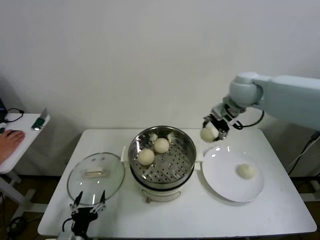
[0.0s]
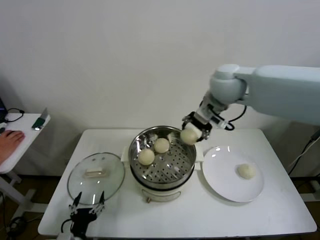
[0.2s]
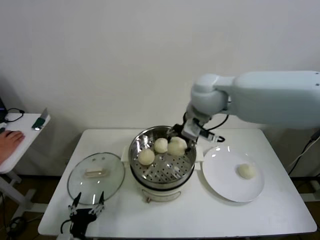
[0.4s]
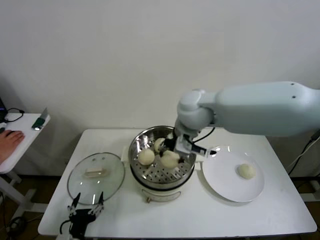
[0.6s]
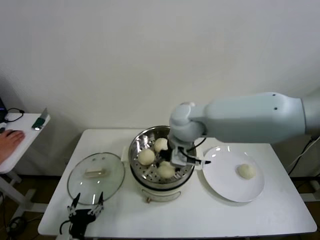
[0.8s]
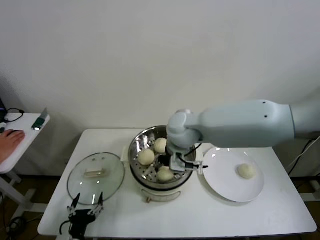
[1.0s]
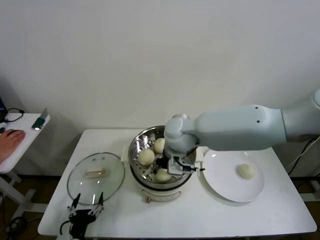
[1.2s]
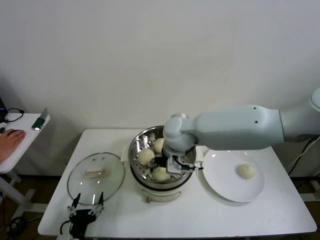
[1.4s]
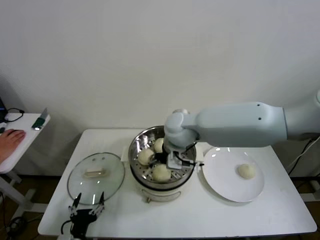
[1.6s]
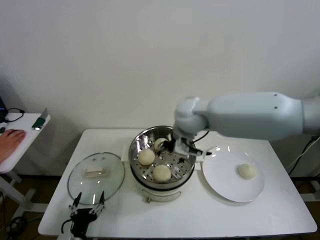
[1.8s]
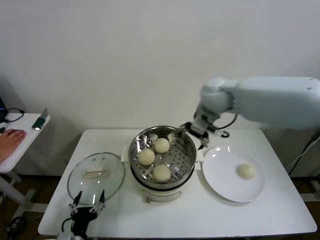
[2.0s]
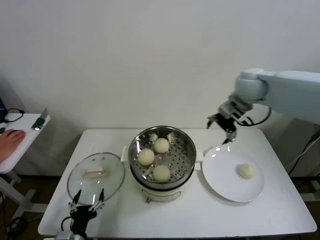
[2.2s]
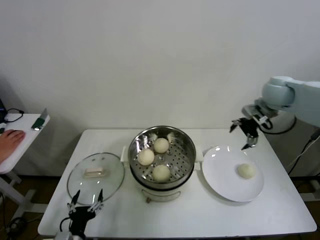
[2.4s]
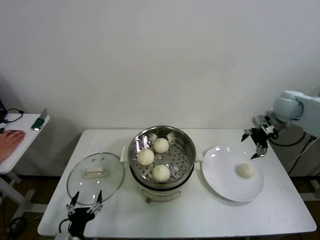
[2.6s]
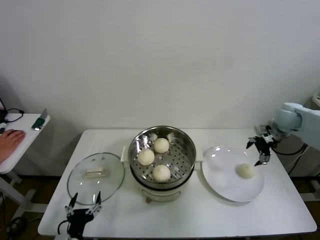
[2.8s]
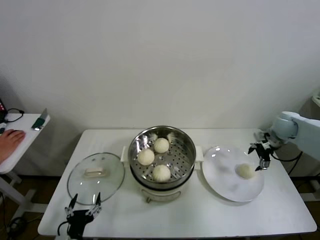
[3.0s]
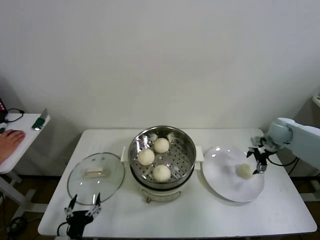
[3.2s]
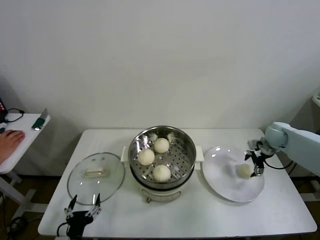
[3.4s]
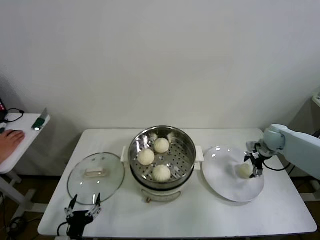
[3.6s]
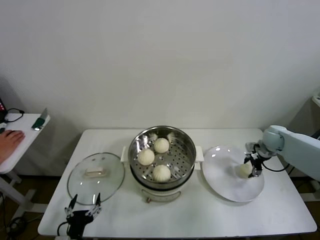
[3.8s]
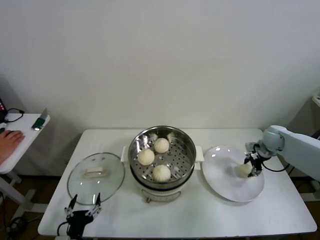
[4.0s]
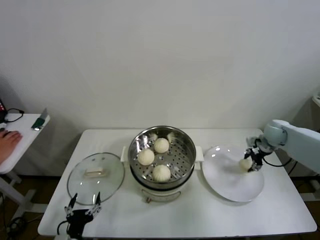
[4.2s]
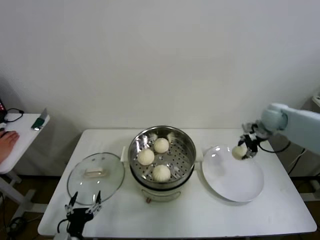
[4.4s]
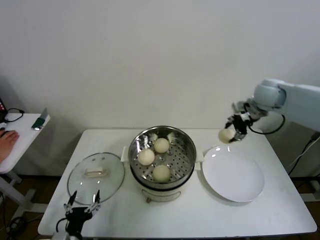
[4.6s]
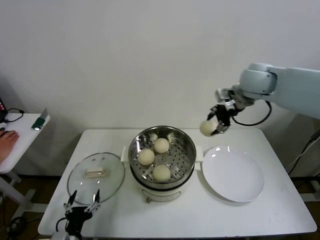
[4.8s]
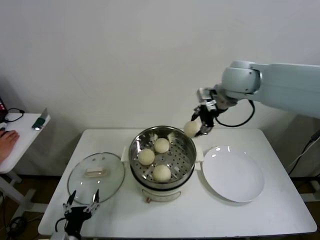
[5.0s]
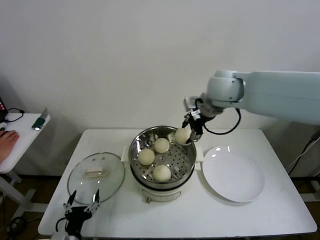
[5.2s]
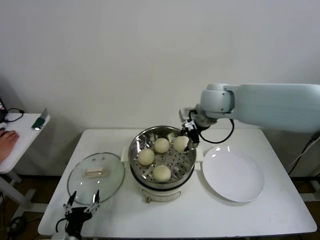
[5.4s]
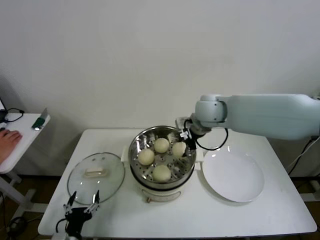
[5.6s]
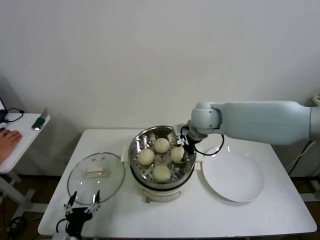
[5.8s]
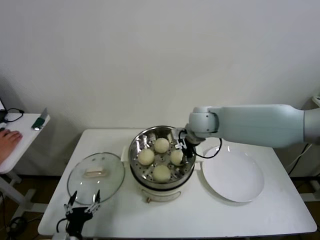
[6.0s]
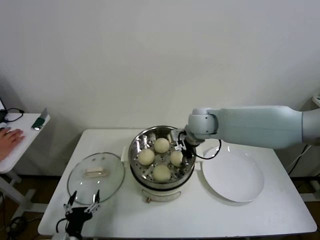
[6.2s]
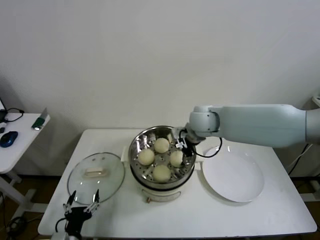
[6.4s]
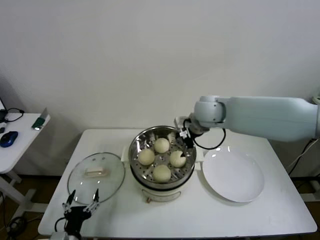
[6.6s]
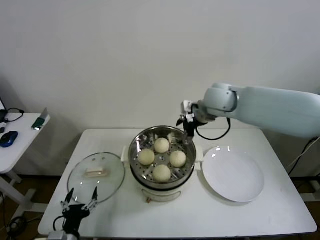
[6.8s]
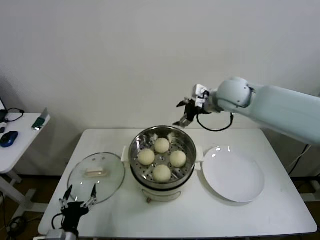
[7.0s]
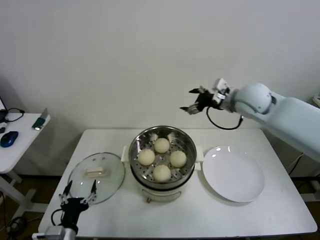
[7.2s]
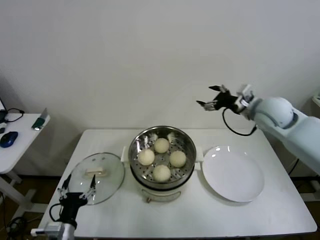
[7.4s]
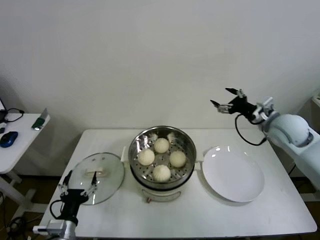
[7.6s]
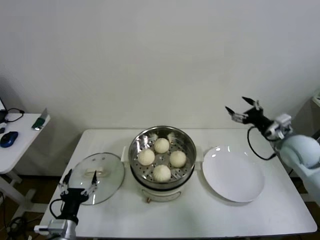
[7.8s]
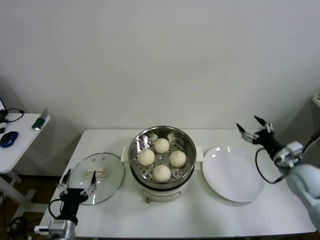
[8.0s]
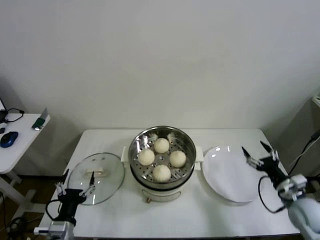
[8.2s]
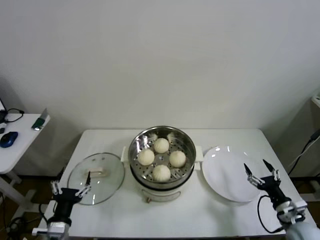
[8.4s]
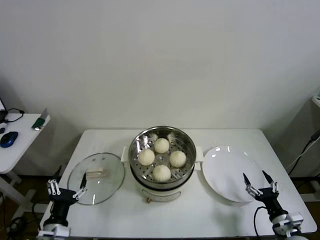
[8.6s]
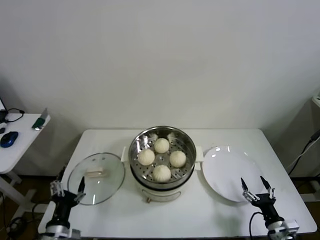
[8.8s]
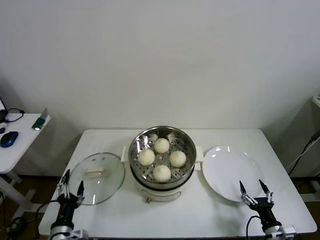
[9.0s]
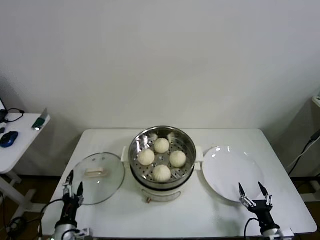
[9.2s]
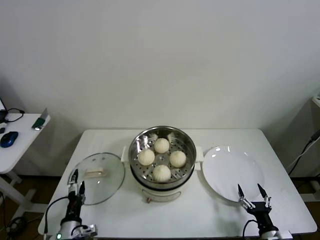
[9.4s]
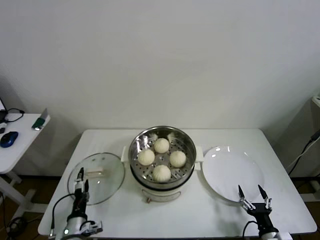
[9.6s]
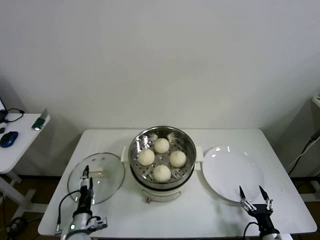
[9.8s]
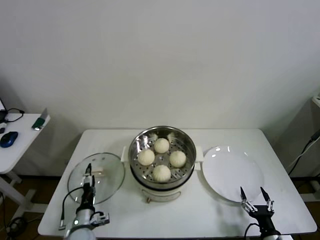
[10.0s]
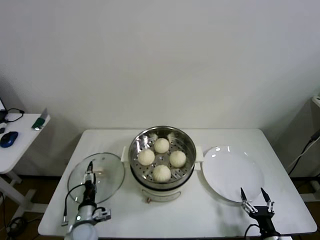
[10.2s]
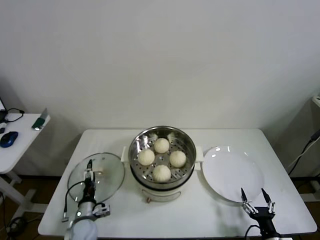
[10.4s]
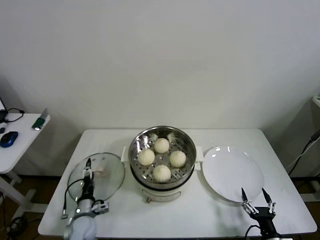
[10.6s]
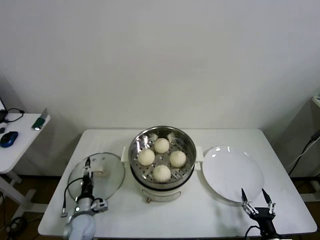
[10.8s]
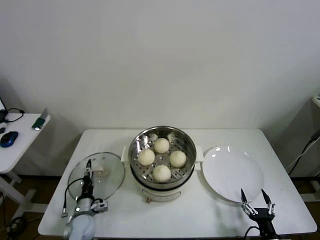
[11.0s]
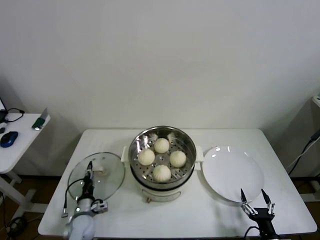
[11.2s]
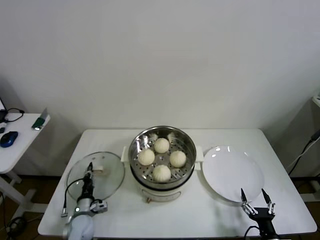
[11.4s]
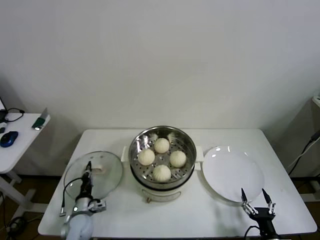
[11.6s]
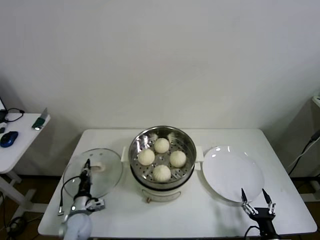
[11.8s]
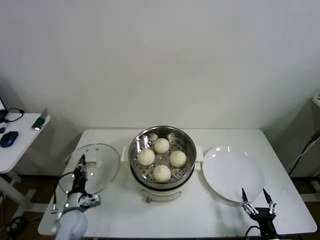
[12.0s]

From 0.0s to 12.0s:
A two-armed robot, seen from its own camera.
Step, from 0.0s to 1.6s: Place the baozi on the steamer with right gripper.
Step, from 1.8s to 3.8s: Grasp the baozi in the plate with right gripper.
Step, from 4.2s to 6.2s: Place the baozi on the steamer with right gripper.
Step, from 6.6s to 11.4s: Grasp the pot lid with left gripper.
From 0.0s to 1.6s: The right gripper heads to the left, downward and backward, covering roughly 20 cm, and opens up.
From 1.6s to 3.0s: The right gripper is displaced to the right by roughly 40 cm.
From 3.0s to 4.4s: The right gripper shifts some 5 cm to the left, and closes up.
From 4.4s to 6.0s: The right gripper heads to the left, covering about 25 cm.
From 6.0s to 7.6s: The right gripper travels to the right by some 25 cm, and opens up. The left gripper moves some 5 cm.
From 7.6s to 9.0s: The right gripper moves downward and backward, some 40 cm.
From 9.0s to 10.4s: The left gripper is displaced forward and downward by about 15 cm.
From 10.4s to 12.0s: The left gripper closes up.

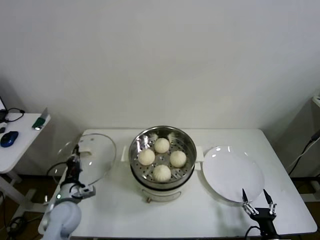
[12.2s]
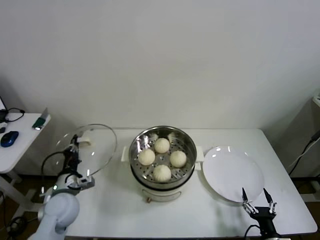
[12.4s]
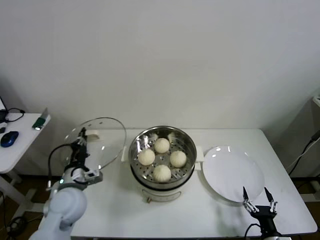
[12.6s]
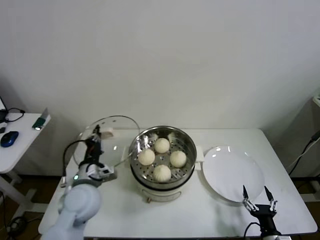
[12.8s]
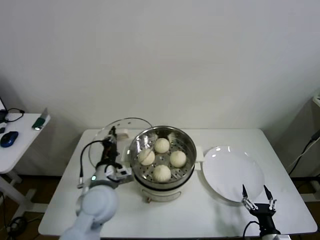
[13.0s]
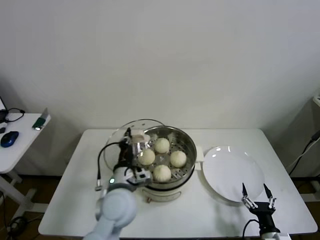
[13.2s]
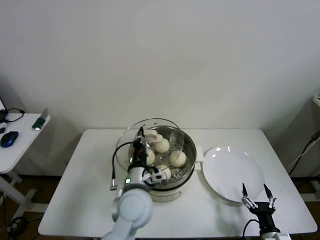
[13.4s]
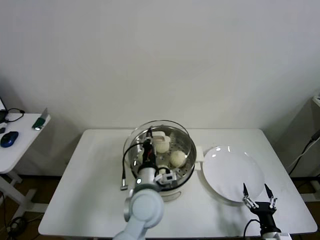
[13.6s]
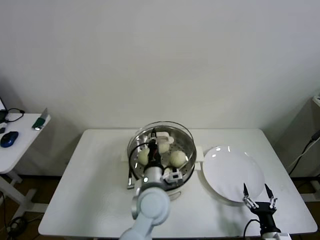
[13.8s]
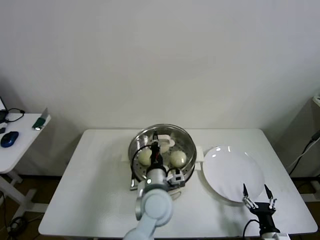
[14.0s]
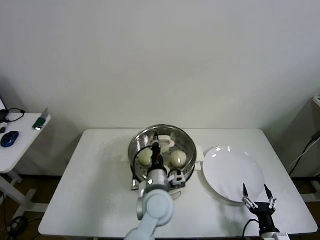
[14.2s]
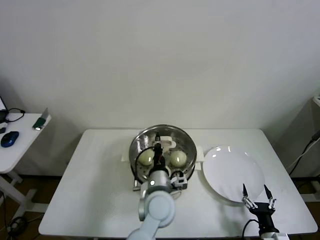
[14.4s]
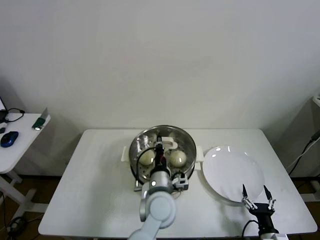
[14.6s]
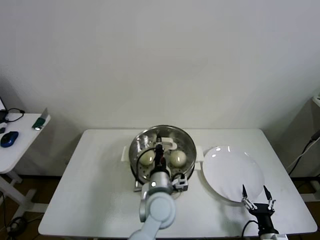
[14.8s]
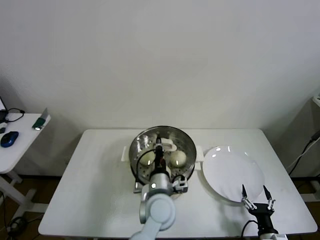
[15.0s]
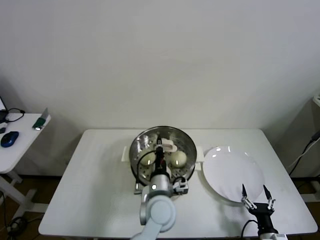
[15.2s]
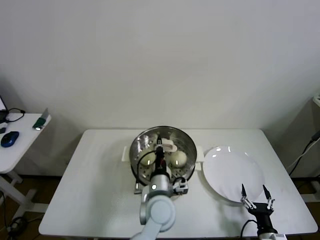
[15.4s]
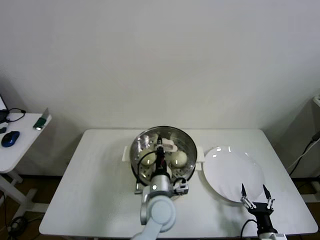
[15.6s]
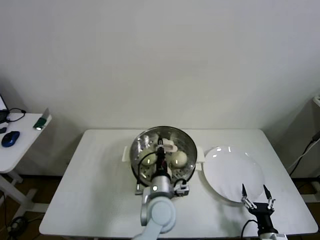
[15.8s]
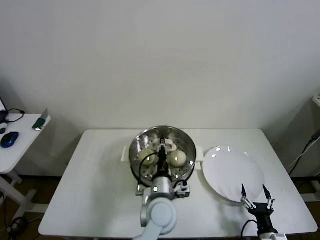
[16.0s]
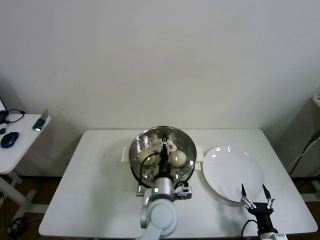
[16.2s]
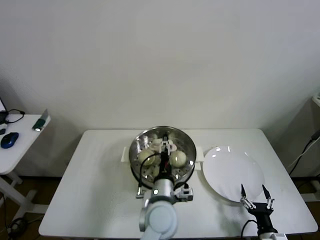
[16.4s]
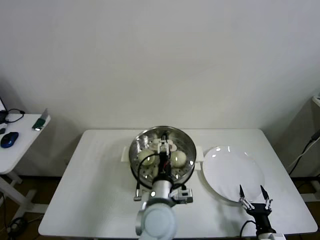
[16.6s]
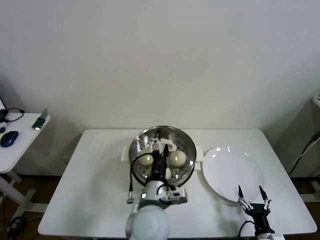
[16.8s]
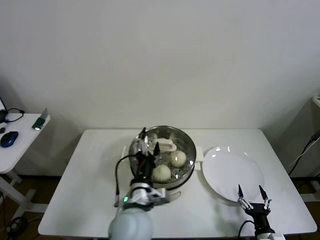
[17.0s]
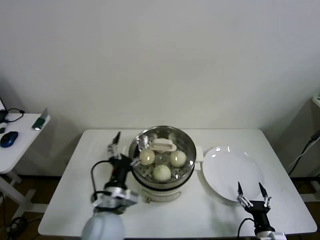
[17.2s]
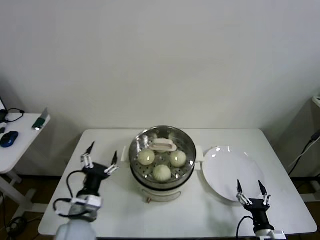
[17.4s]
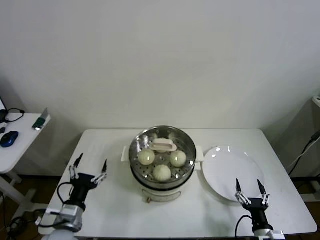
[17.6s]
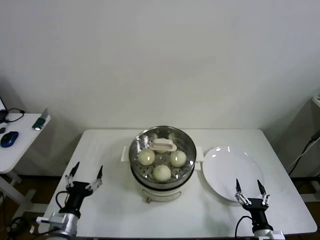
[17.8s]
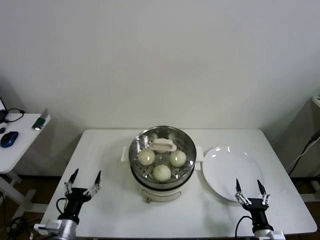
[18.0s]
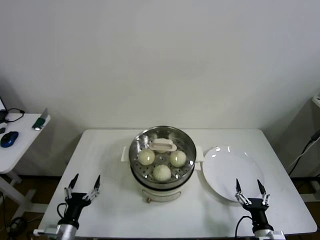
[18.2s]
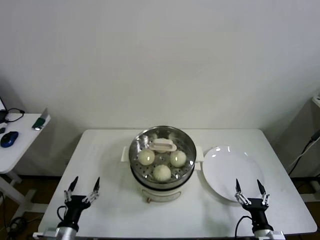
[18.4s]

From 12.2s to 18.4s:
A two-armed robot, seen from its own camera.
Step, from 12.2s to 16.0s: Place the pot lid on the steamer with left gripper.
From 12.2s to 13.8s: The left gripper heads to the right and upward, covering approximately 30 cm.
From 13.8s to 15.4s: The left gripper changes place by approximately 5 cm.
From 15.4s to 16.8s: The left gripper ends up about 5 cm from where it was, and opens up.
From 16.8s to 18.4s: The left gripper is displaced to the left and downward by about 35 cm.

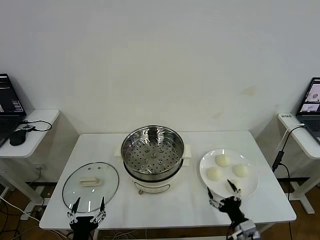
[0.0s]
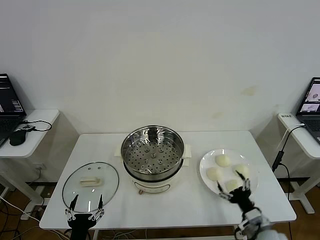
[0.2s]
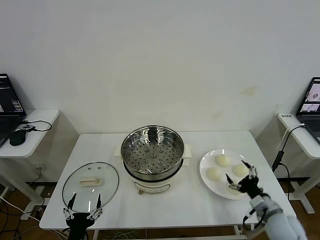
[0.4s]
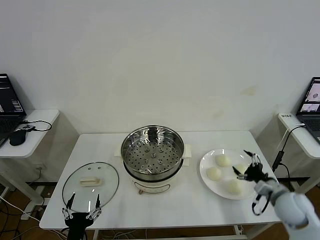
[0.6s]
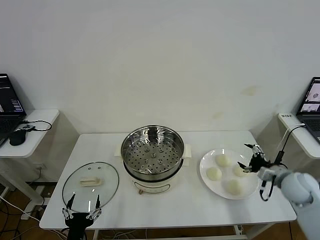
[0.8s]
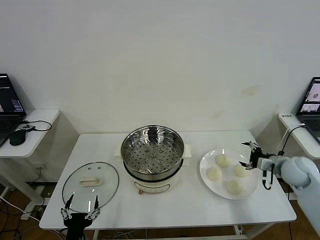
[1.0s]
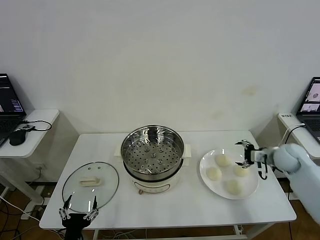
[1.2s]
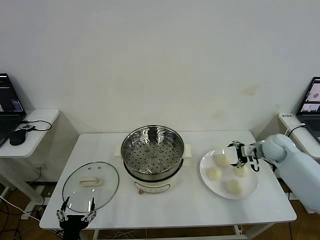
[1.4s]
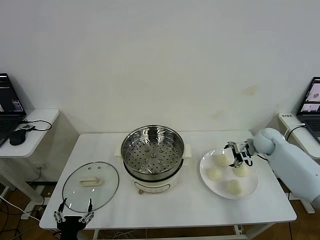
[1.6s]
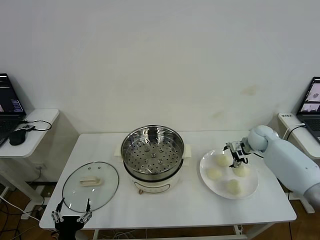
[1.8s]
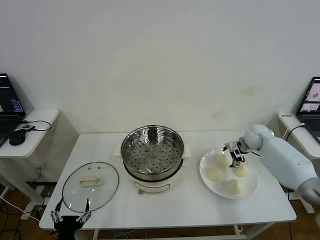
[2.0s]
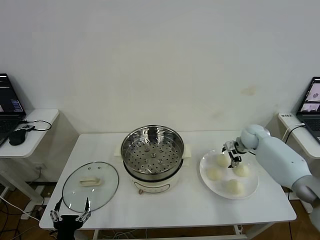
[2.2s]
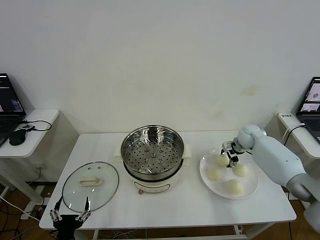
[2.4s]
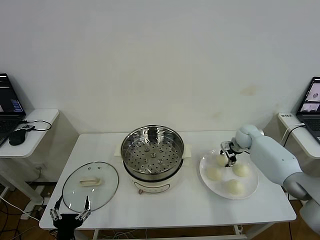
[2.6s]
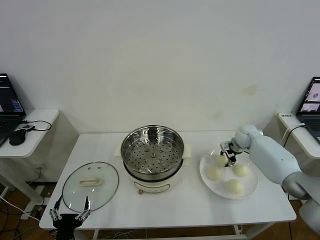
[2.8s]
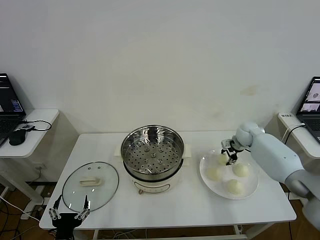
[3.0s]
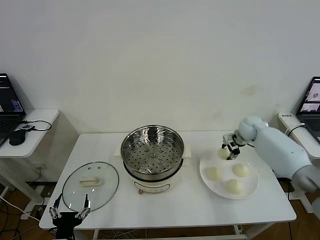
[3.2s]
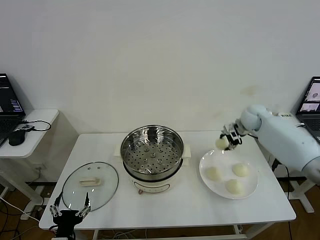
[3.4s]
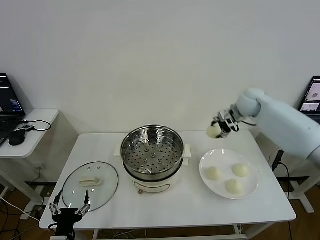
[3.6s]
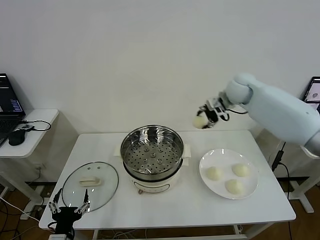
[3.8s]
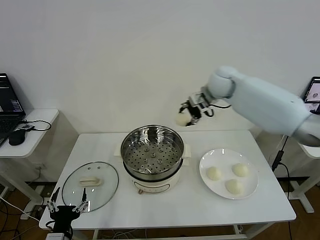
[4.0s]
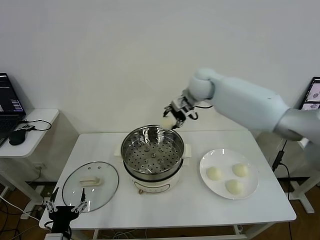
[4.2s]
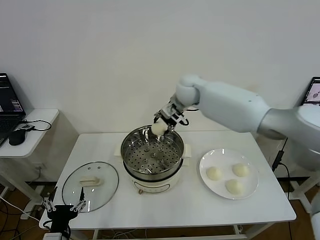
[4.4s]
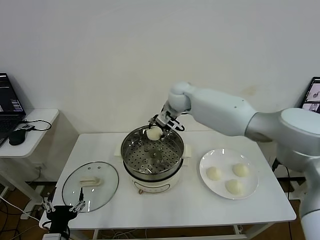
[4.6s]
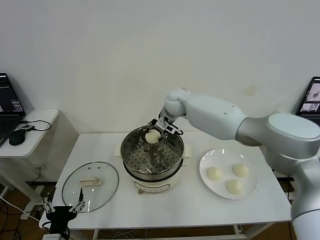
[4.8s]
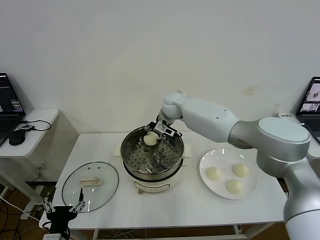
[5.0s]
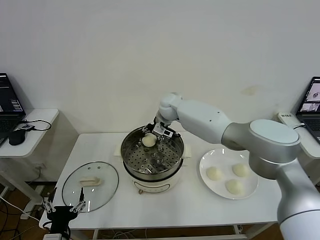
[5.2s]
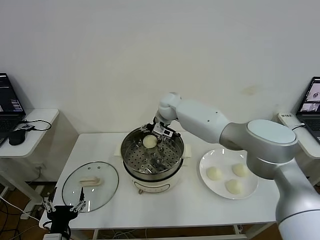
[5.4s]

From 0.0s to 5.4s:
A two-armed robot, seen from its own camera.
Step, from 0.0s to 2.8s: Grasp the baozi in the plate with right gripper.
Step, from 3.0s to 5.2s: Place the baozi on the steamer with right gripper.
From 1.4s to 2.8s: The right gripper travels forward by roughly 5 cm, and closes up.
From 2.8s to 4.0s: The right gripper moves upward and to the left, approximately 30 cm.
From 4.0s to 5.4s: The right gripper goes roughly 15 cm to the left and downward, and opens up.
